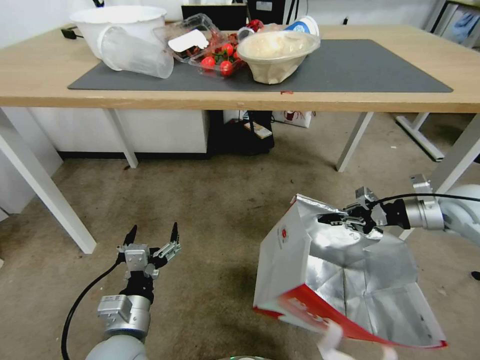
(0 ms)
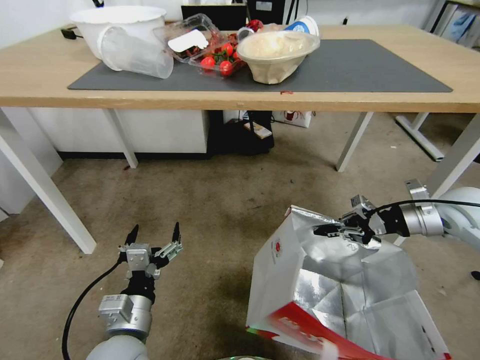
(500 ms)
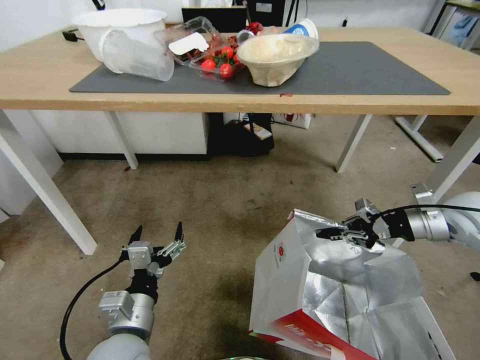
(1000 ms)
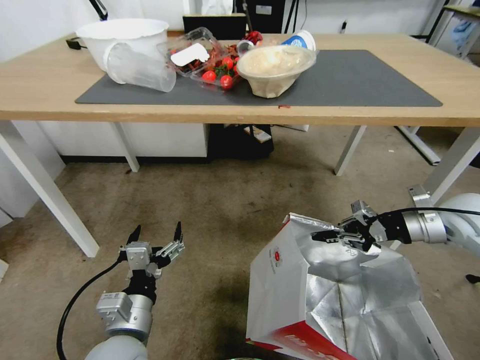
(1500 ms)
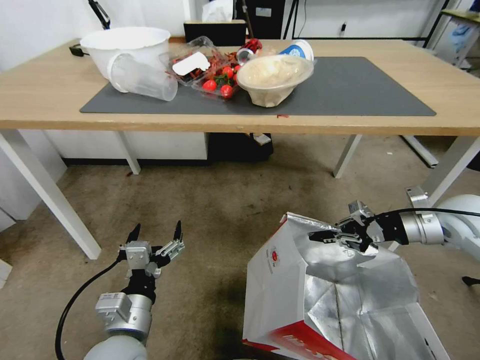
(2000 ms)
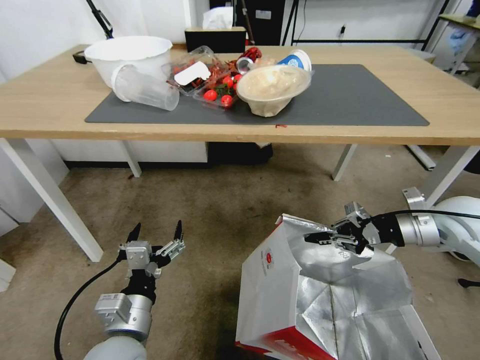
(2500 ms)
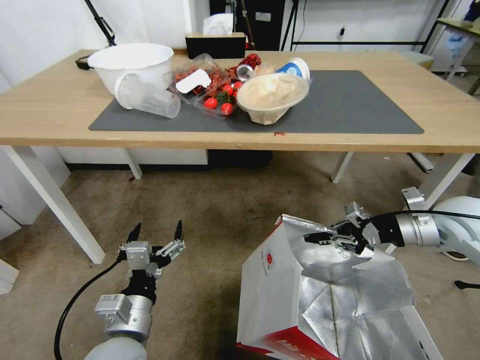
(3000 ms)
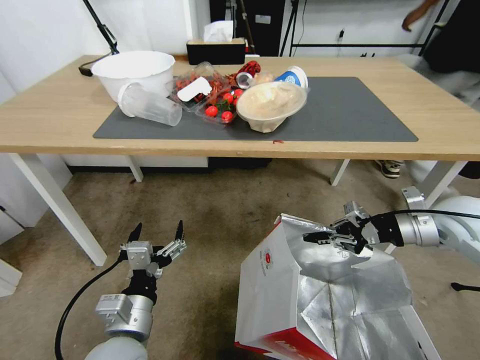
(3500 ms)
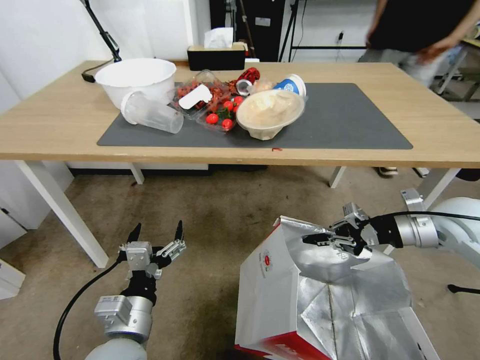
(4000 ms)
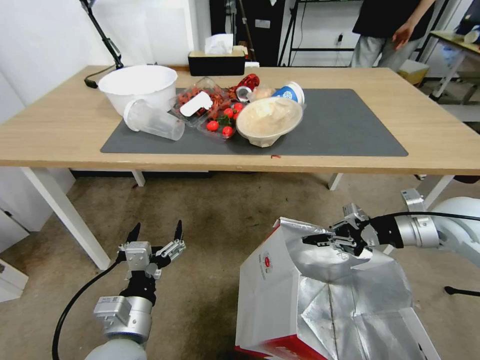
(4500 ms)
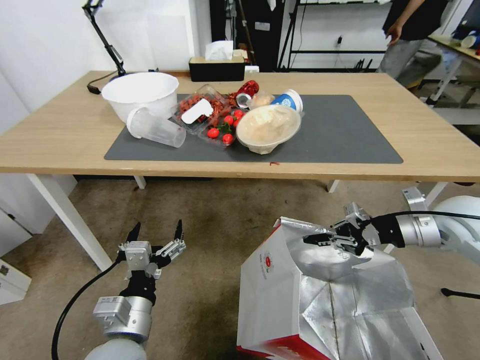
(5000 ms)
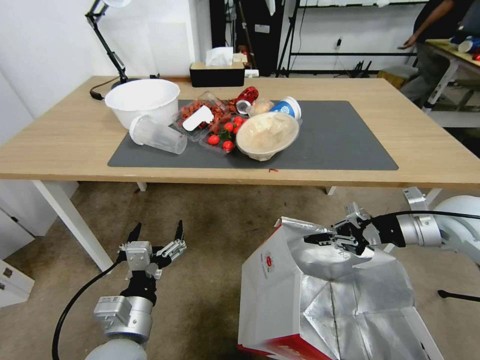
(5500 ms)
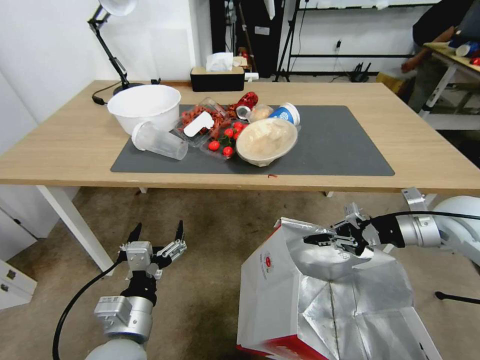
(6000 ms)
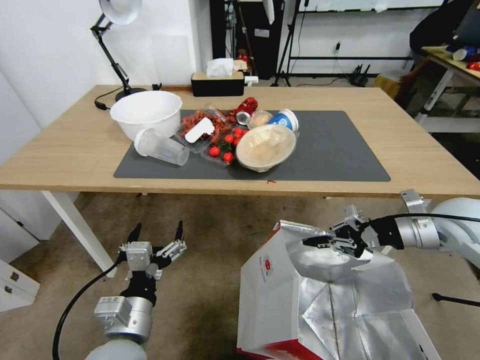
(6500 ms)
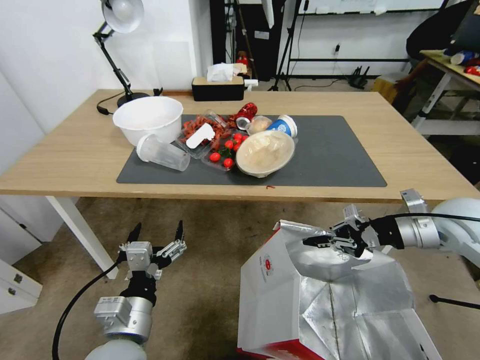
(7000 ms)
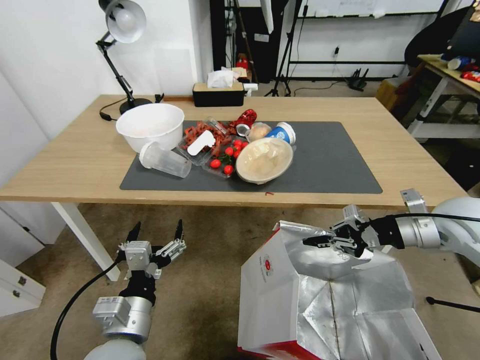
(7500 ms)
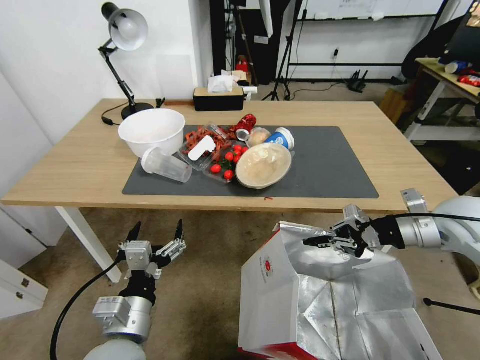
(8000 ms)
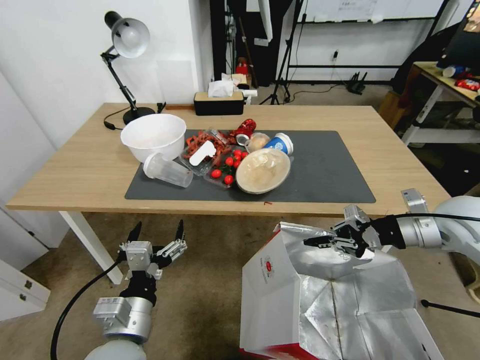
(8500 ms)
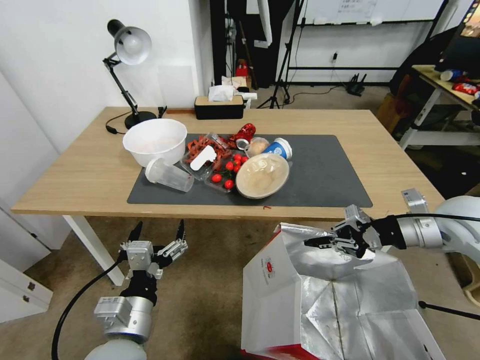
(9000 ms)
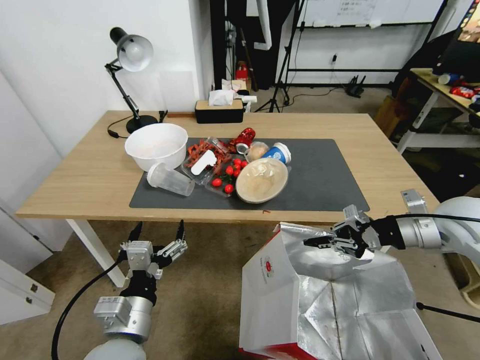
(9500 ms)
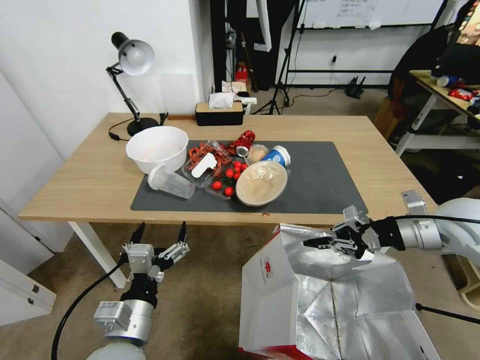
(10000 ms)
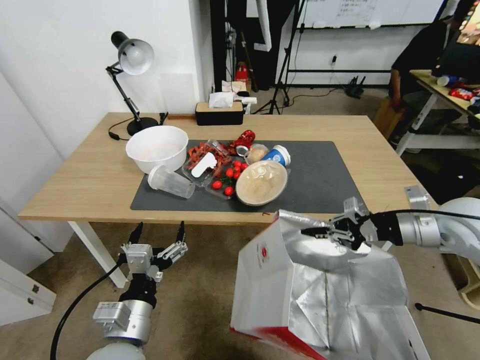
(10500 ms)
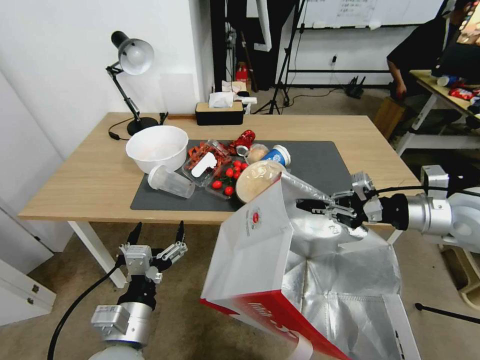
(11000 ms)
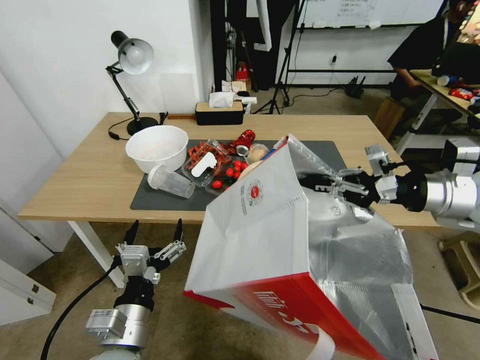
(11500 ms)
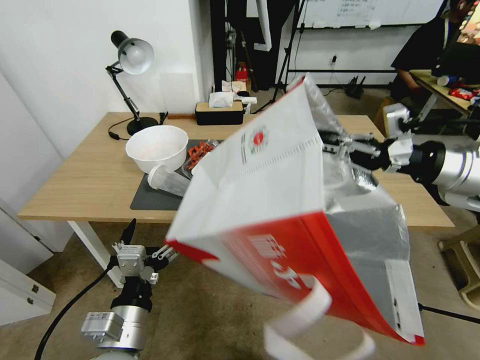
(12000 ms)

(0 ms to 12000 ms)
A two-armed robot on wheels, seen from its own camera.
Task of the whole recording: Pick up the food delivery bag from the floor and place it on the table.
10000 ms - 12000 ms: The right gripper shifts roughly 15 cm upward.

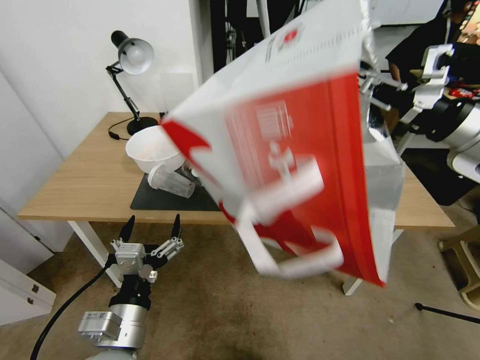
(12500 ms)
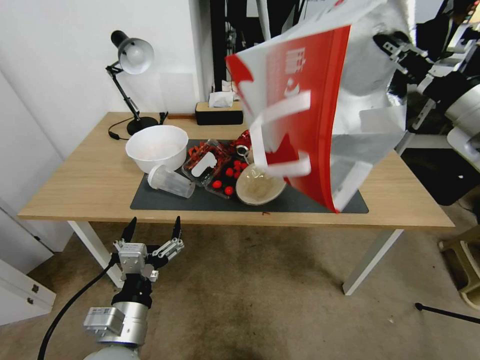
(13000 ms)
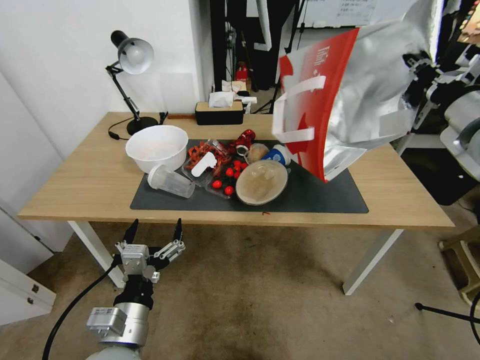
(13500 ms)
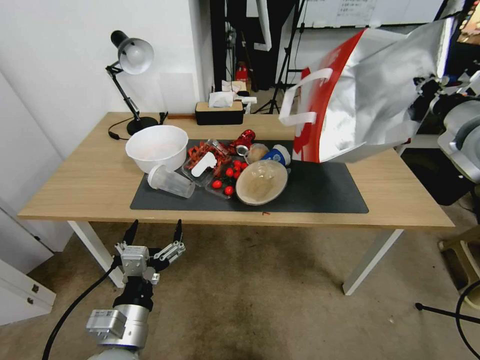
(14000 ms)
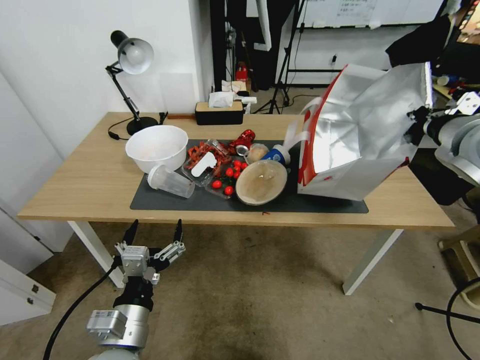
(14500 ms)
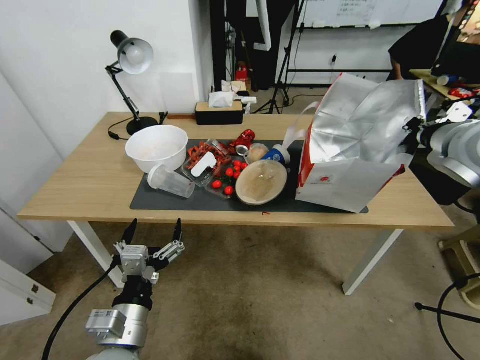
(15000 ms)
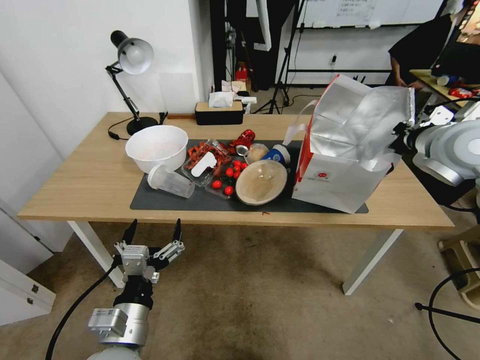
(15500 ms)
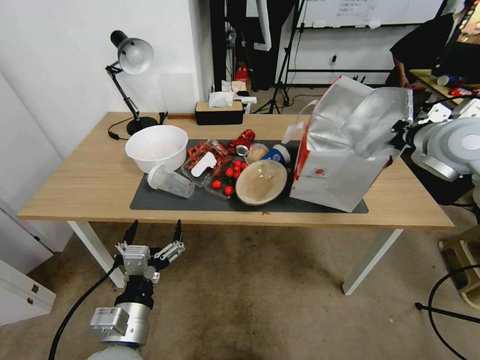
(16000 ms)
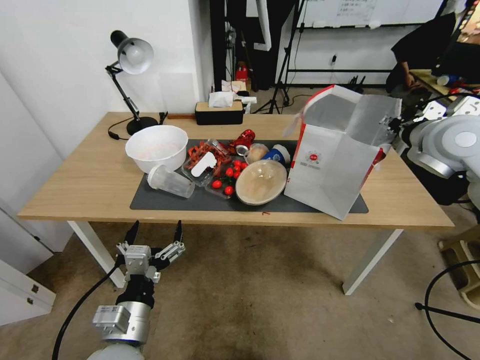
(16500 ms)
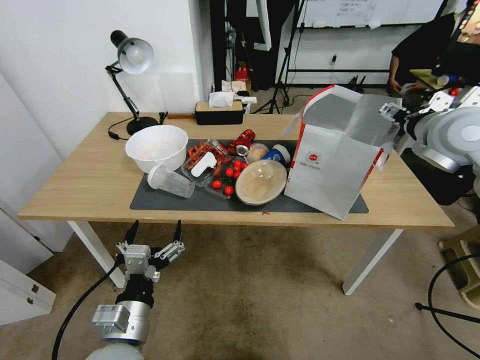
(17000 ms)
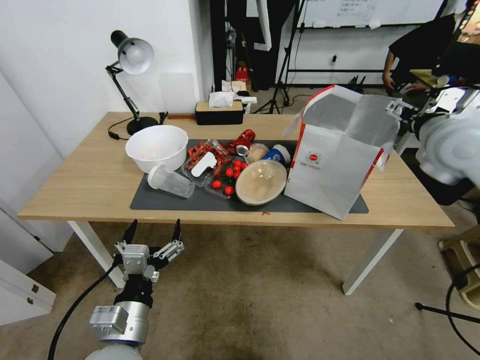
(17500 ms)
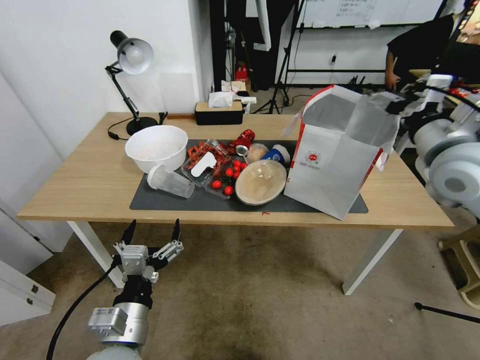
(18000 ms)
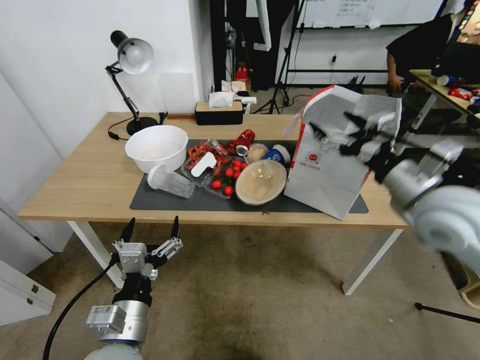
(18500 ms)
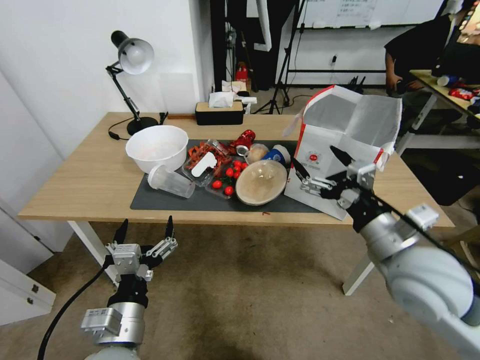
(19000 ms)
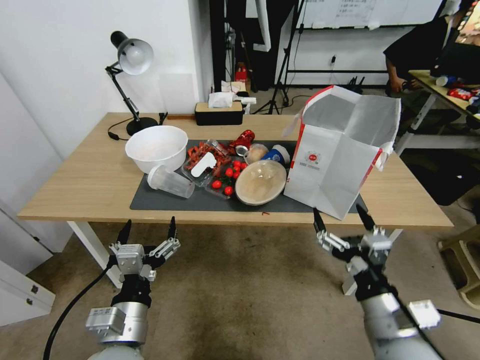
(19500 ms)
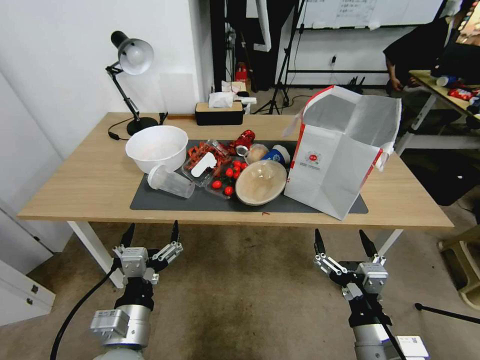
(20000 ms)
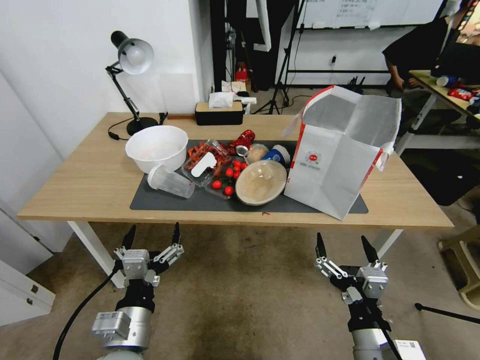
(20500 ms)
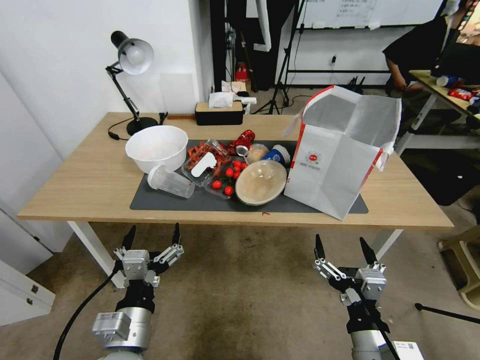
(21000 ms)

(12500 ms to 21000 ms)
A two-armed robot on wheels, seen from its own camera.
Task of the whole recording: Pick up the food delivery bag from the floor and place it on the table.
14500 ms - 16500 ms: The right gripper changes place by roughly 5 cm, and opens its fingers.
16500 ms - 19000 ms: The right gripper heads backward, downward and to the left, covering about 25 cm, and opens up.
19000 ms - 21000 ms: The right gripper moves backward and downward, approximately 20 cm.

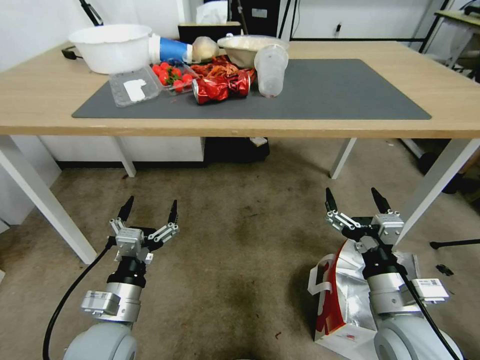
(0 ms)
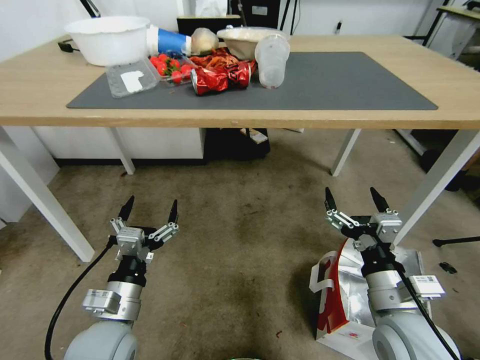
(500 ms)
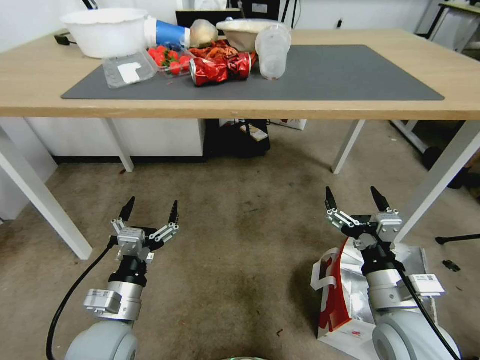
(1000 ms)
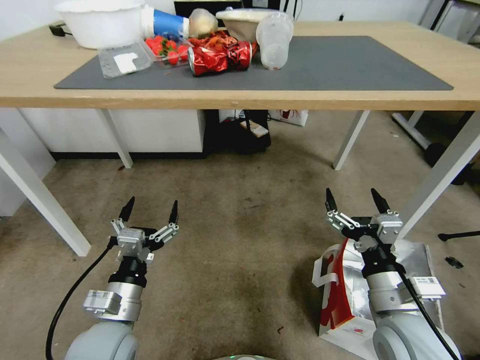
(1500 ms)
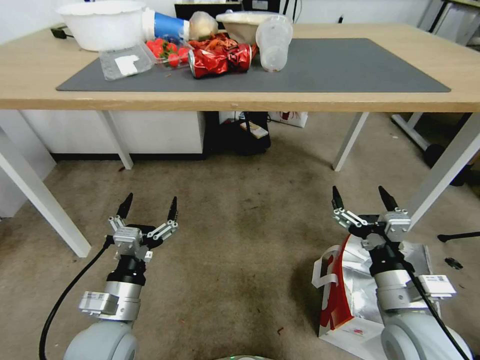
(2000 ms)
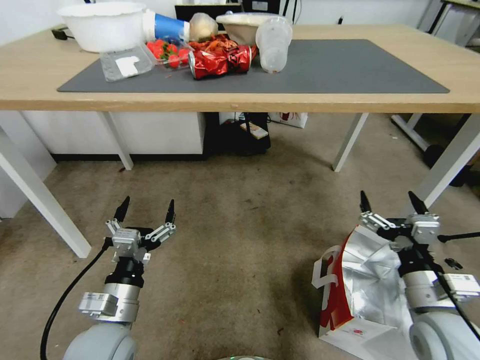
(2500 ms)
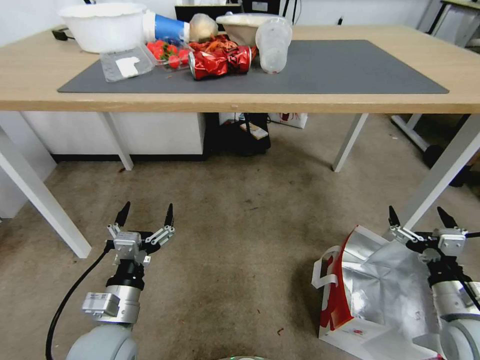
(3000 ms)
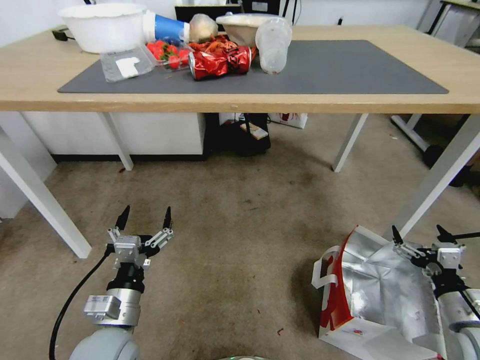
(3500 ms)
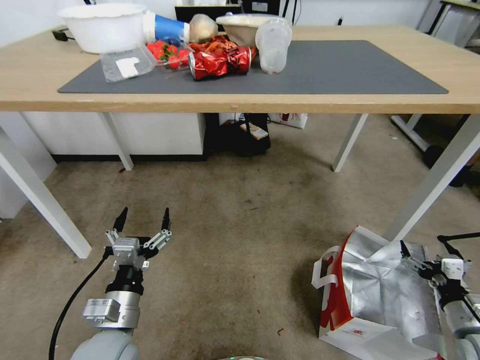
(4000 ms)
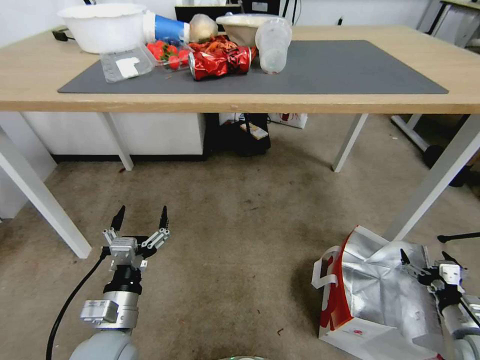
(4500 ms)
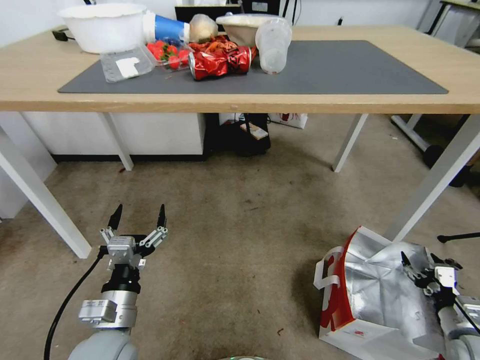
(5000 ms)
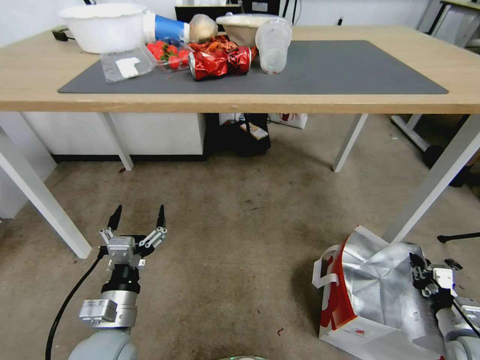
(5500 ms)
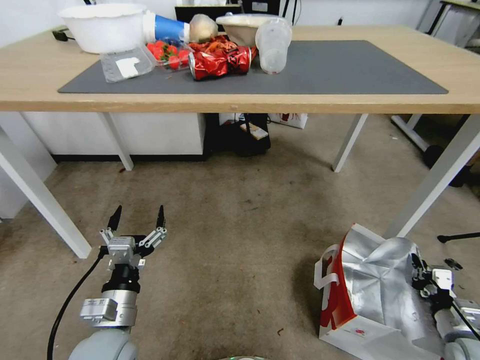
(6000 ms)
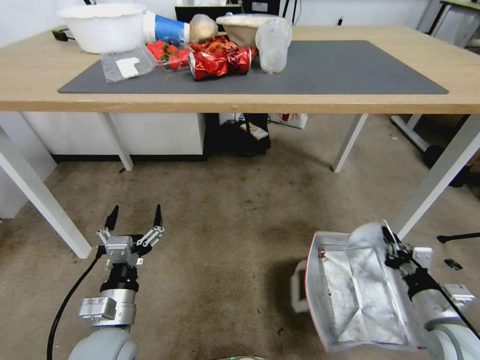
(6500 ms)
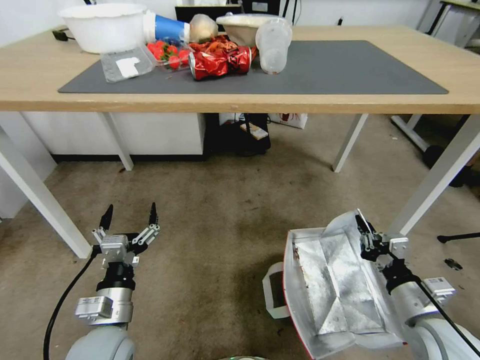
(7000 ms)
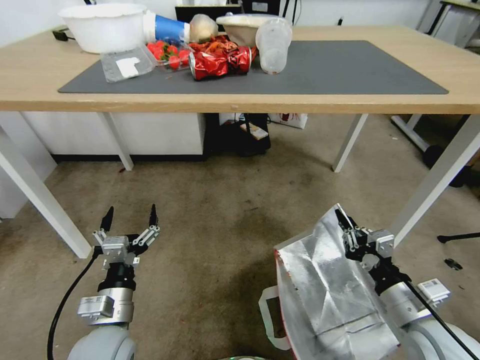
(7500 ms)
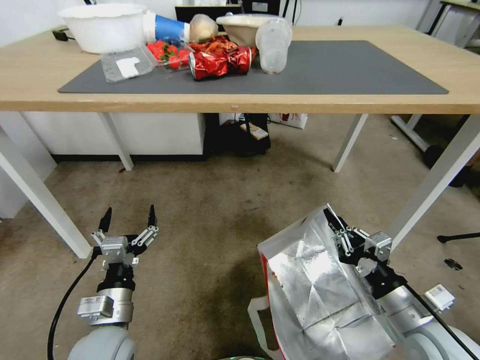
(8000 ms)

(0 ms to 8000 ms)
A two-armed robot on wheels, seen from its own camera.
Task of the whole recording: Pick up the food delivery bag from the floor and place it on the table.
2000 ms - 4000 ms: The right gripper shifts roughly 25 cm to the right and downward.
4000 ms - 6000 ms: The right gripper closes.
6000 ms - 8000 ms: The right gripper moves to the left and upward, about 20 cm.
